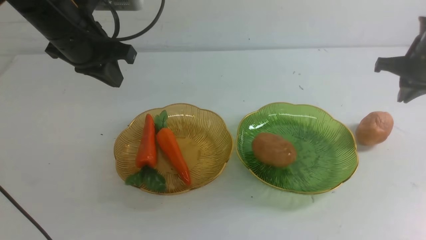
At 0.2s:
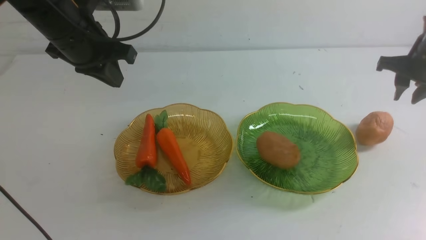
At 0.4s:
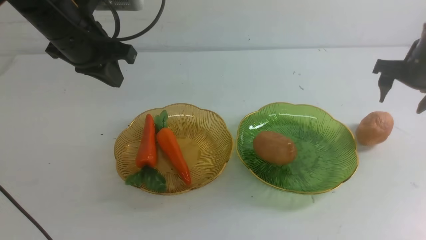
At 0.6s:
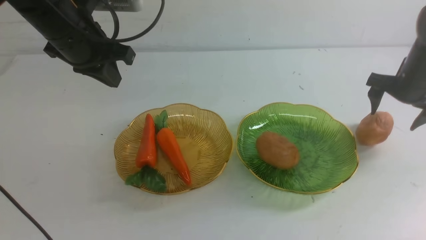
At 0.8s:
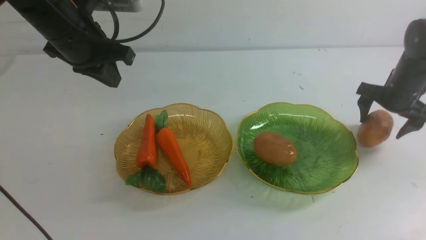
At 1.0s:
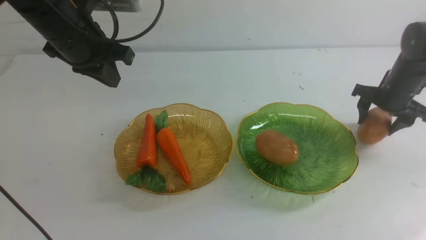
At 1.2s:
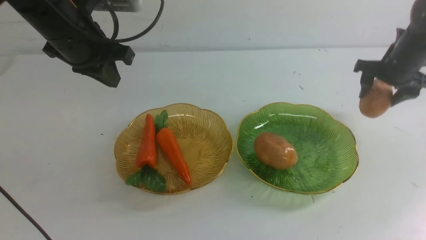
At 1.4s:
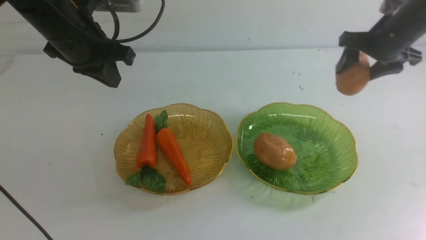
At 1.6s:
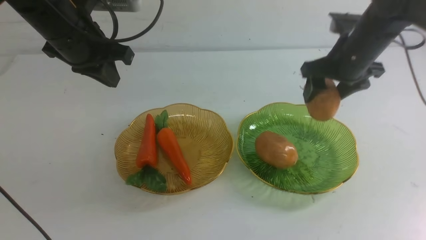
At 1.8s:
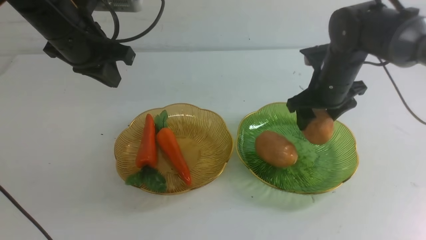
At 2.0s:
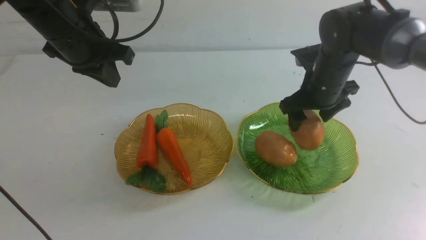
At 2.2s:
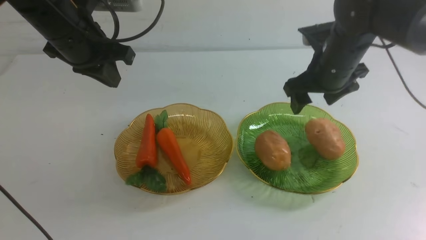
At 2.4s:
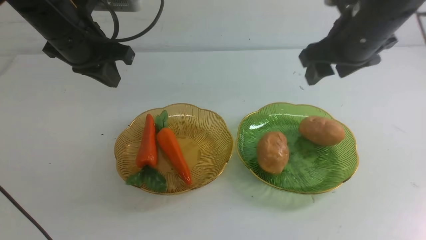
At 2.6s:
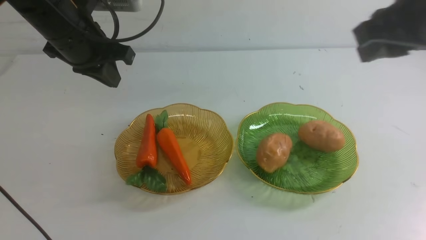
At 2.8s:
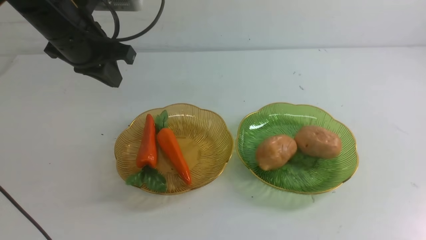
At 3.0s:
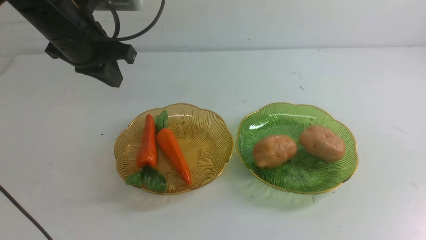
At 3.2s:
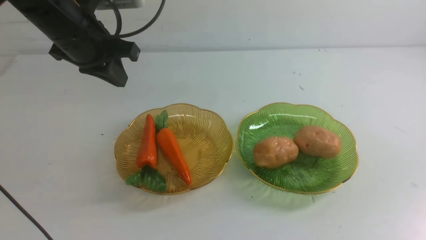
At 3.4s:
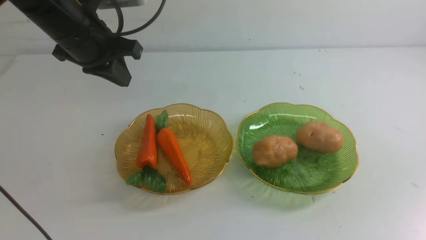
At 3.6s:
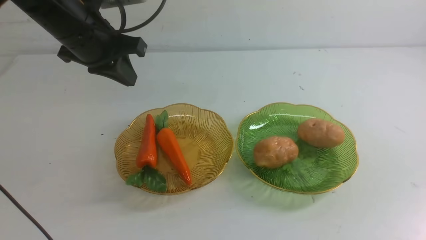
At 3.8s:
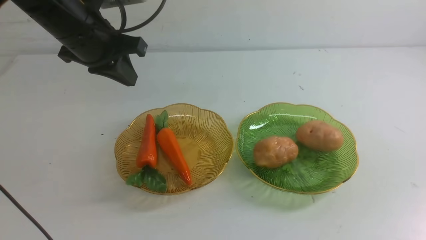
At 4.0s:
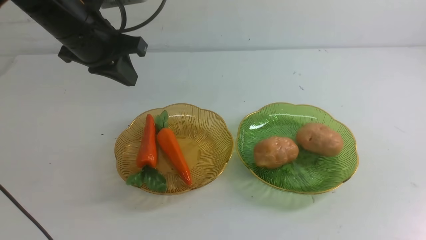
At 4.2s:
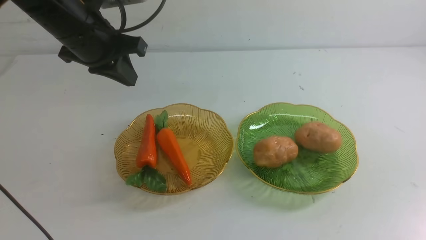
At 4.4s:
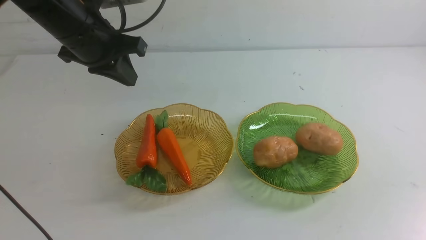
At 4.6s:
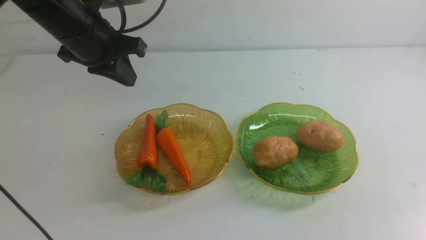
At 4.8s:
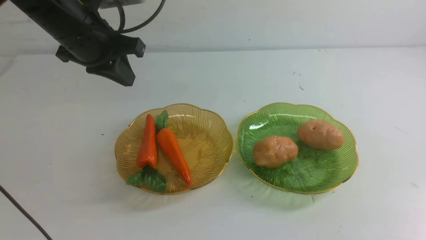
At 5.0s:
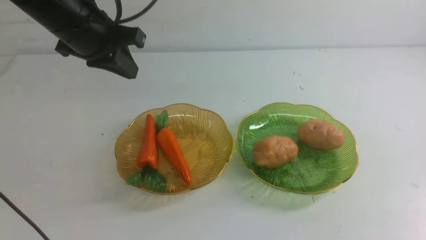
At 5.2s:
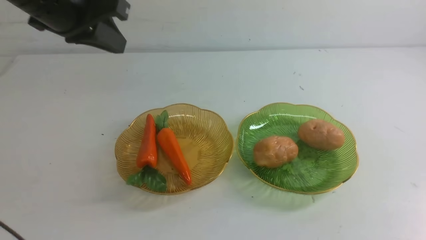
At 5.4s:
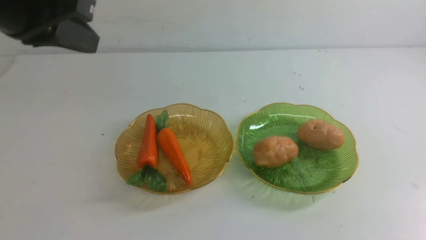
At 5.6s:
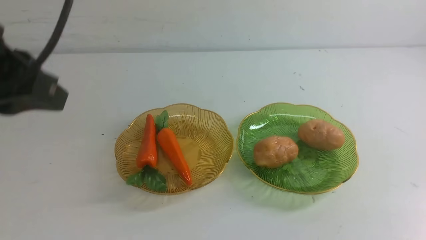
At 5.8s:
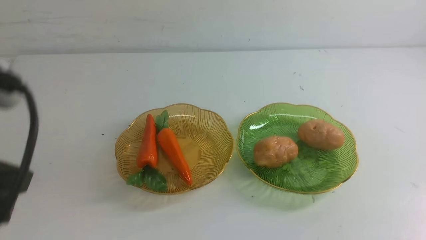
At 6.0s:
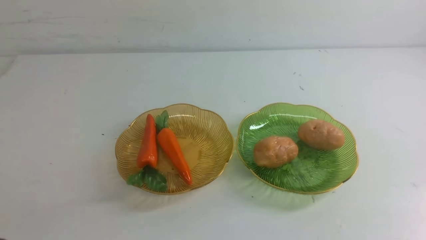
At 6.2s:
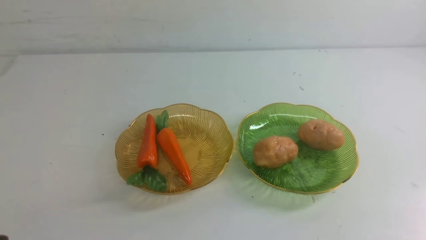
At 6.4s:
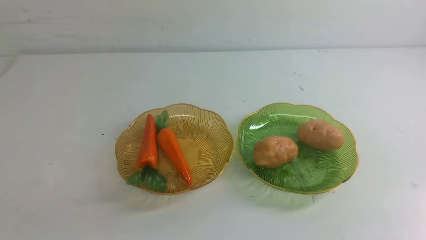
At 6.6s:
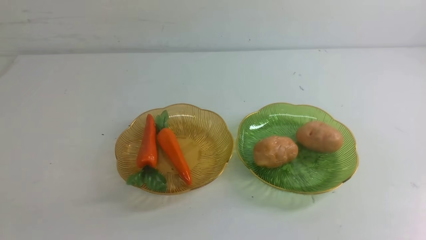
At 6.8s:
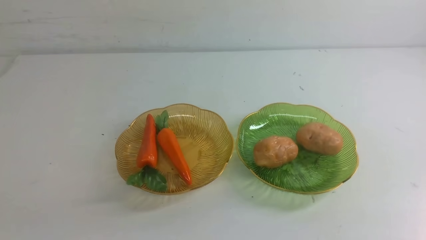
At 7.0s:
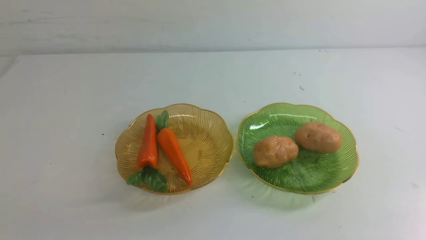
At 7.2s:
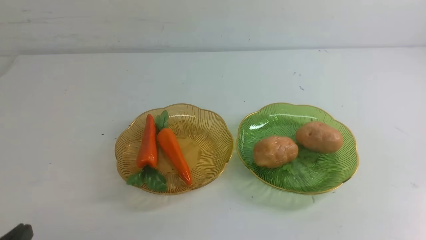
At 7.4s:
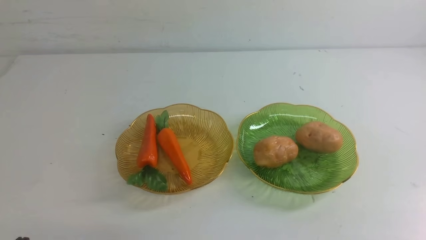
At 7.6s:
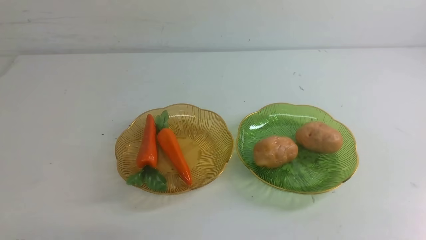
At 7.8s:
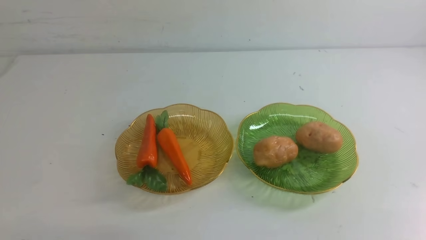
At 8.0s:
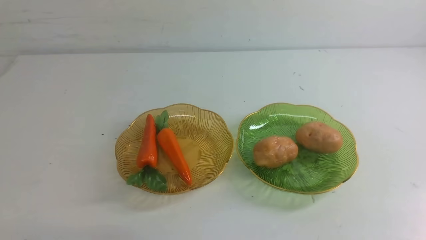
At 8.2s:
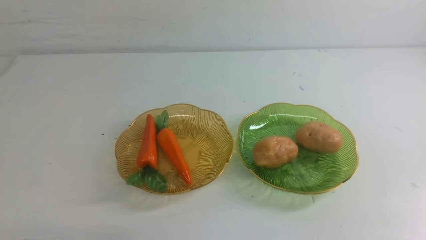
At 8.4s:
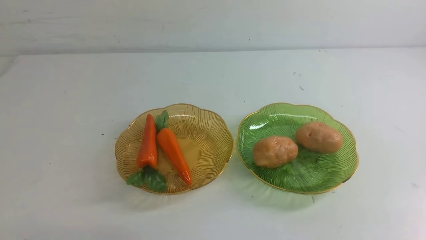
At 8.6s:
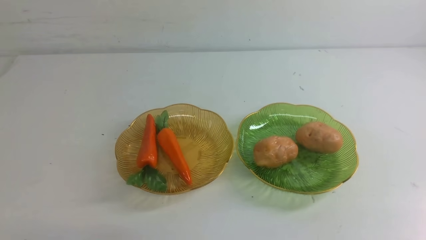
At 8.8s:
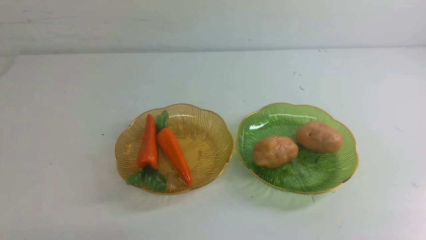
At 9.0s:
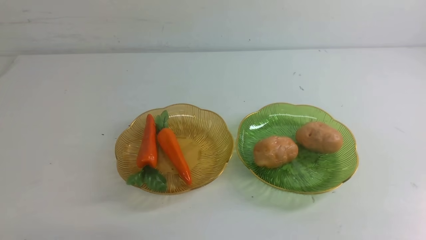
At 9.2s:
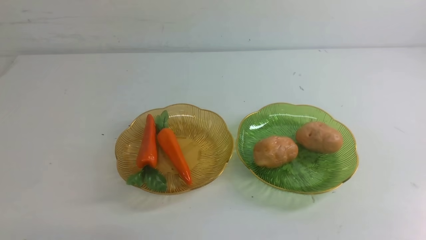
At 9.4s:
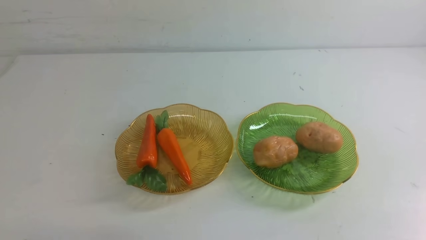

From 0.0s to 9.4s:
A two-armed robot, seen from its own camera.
Step, from 0.0s to 2.0s: Grab a potato with your right arm and put it on the right plate.
From 0.0s to 1.6s: The right gripper goes some 10 cm to the left, and opens.
From 1.6s to 3.2s: The right gripper shifts roughly 40 cm backward, and closes its fingers.
From 3.2s to 4.8s: The right gripper is displaced downward by some 15 cm.
From 4.8s to 6.2s: The left gripper is displaced backward by approximately 35 cm.
From 7.8s to 9.4s: Both grippers stay put.
